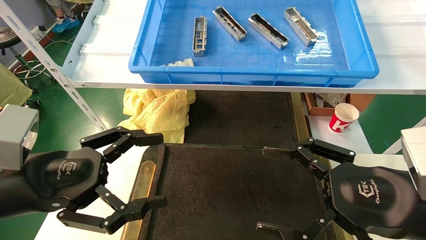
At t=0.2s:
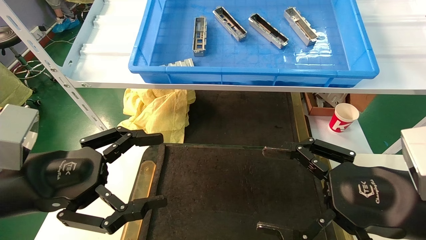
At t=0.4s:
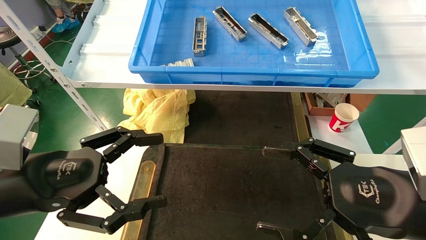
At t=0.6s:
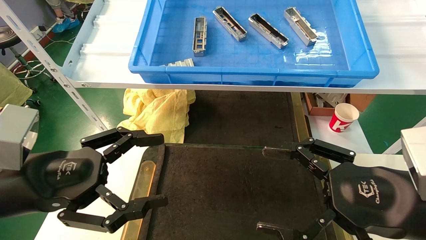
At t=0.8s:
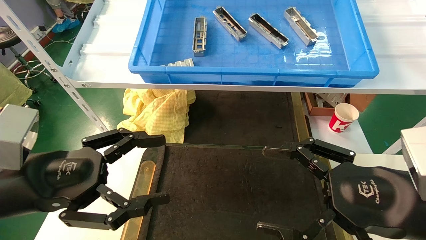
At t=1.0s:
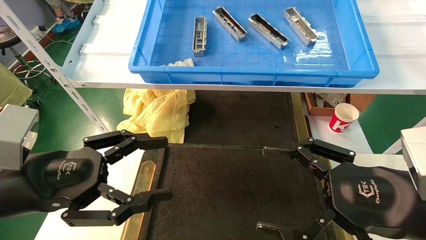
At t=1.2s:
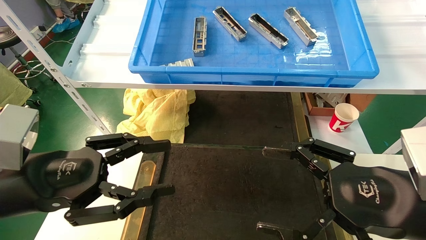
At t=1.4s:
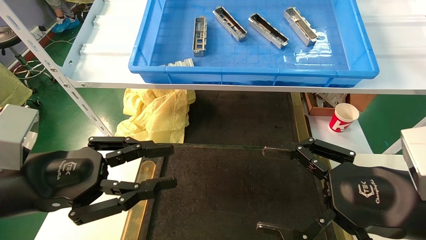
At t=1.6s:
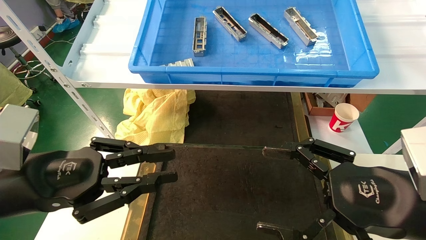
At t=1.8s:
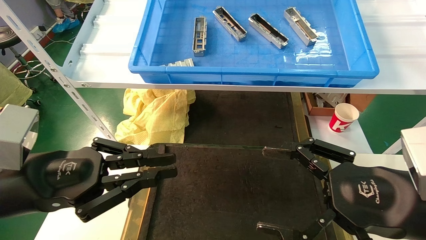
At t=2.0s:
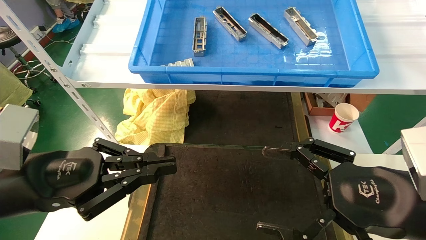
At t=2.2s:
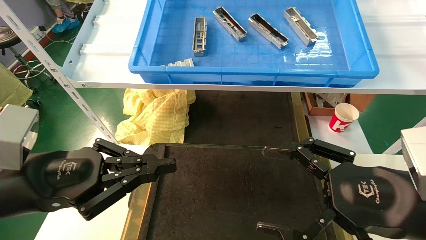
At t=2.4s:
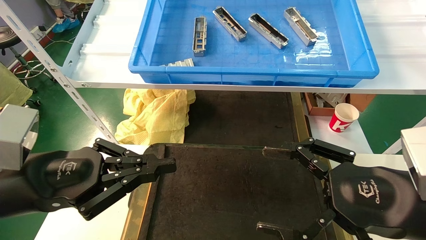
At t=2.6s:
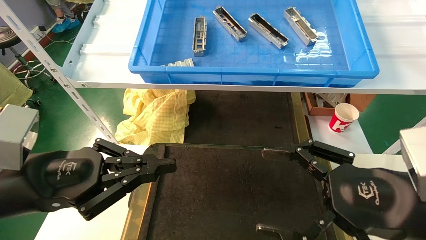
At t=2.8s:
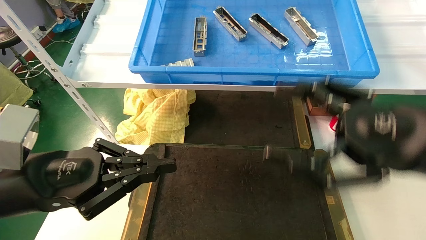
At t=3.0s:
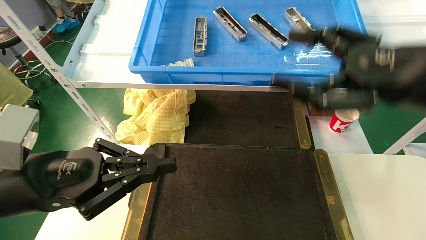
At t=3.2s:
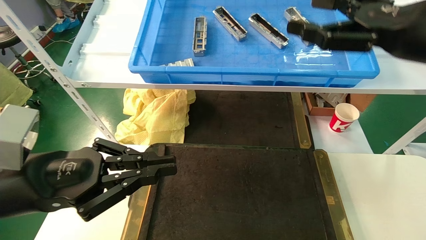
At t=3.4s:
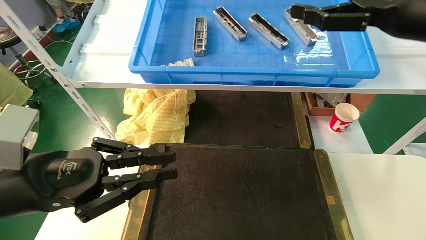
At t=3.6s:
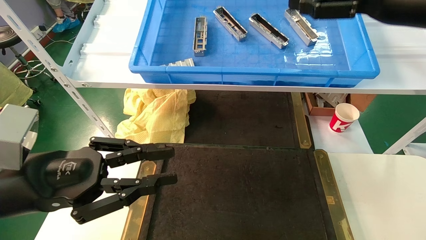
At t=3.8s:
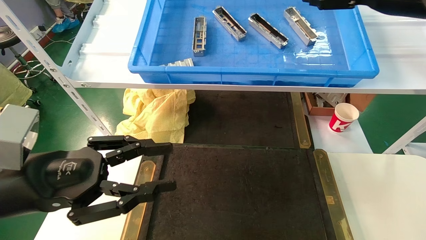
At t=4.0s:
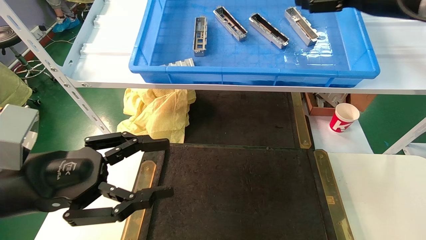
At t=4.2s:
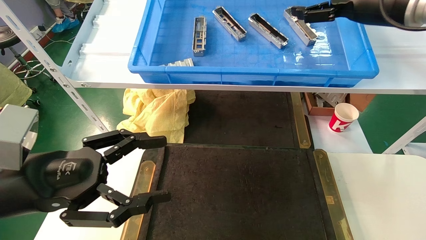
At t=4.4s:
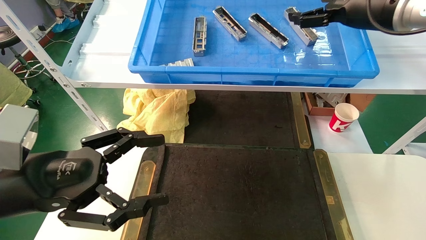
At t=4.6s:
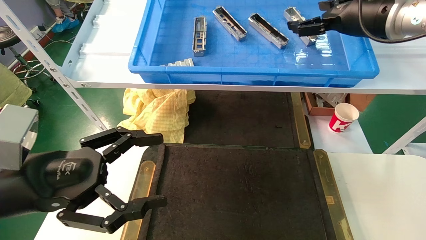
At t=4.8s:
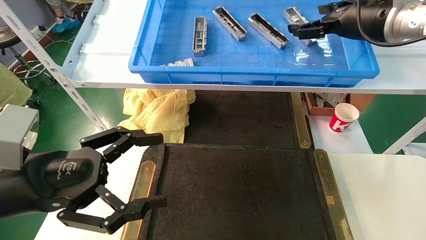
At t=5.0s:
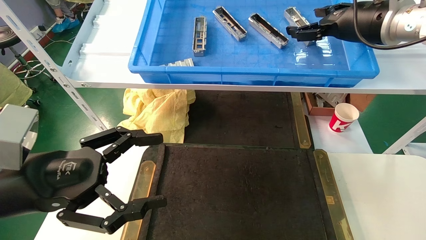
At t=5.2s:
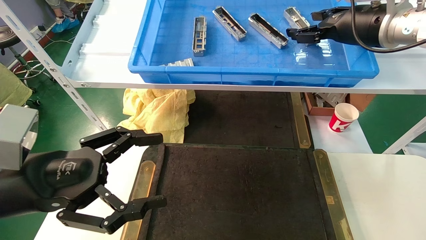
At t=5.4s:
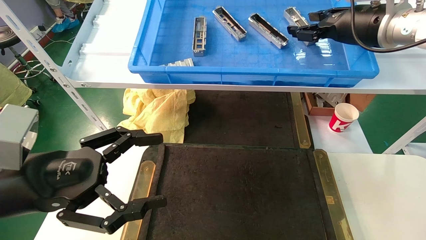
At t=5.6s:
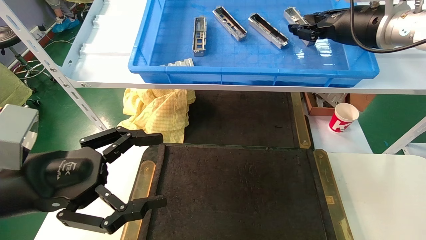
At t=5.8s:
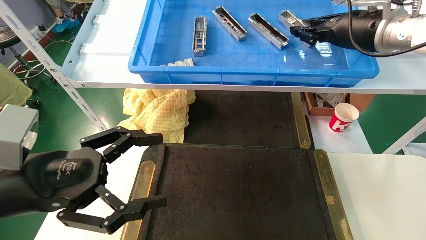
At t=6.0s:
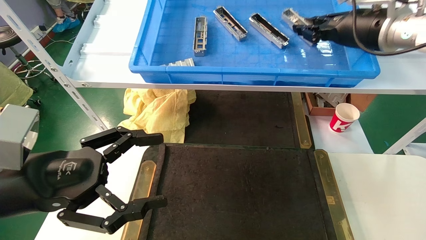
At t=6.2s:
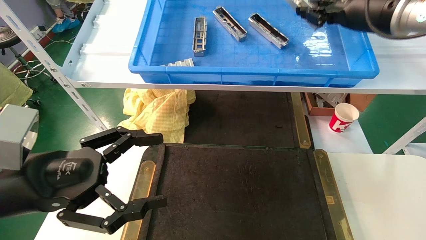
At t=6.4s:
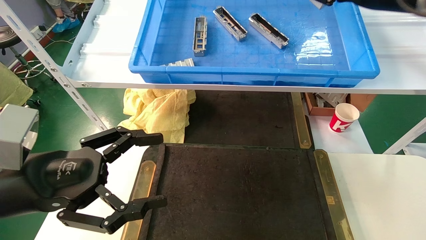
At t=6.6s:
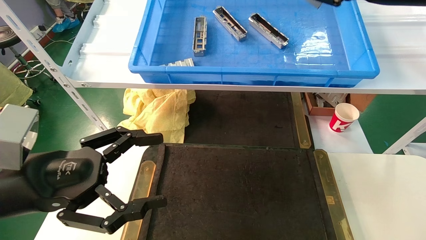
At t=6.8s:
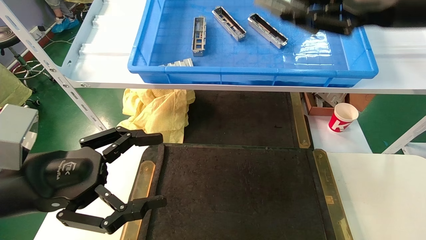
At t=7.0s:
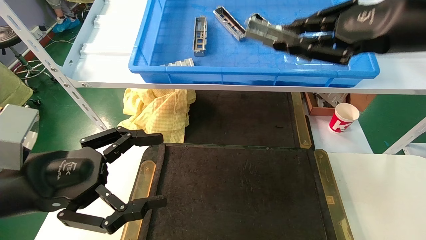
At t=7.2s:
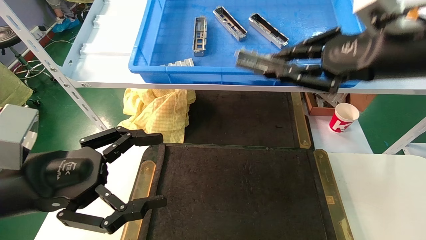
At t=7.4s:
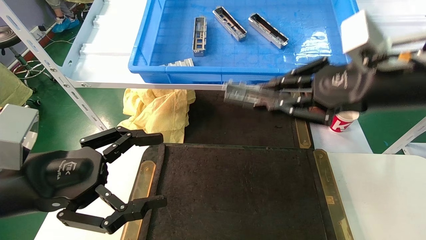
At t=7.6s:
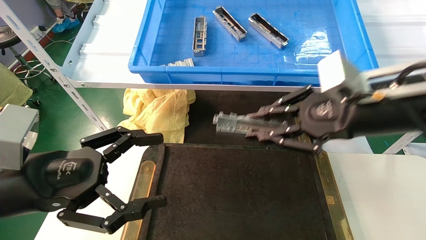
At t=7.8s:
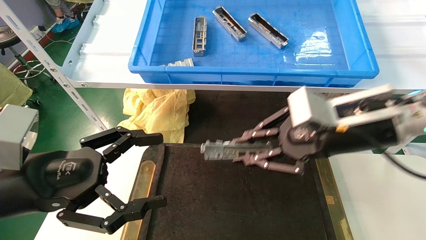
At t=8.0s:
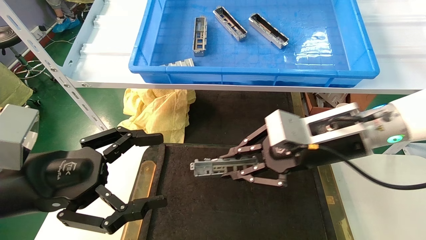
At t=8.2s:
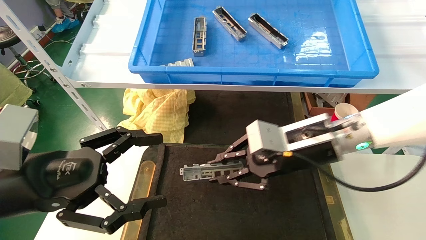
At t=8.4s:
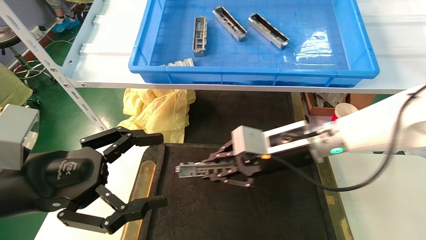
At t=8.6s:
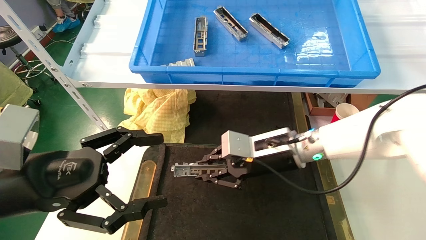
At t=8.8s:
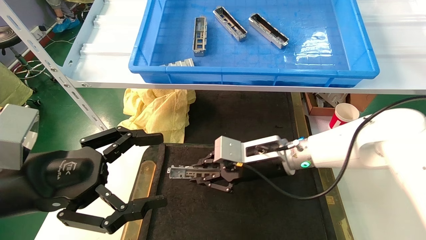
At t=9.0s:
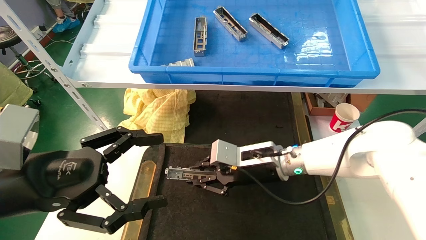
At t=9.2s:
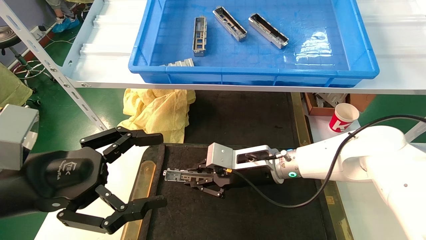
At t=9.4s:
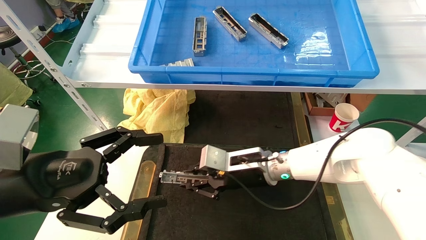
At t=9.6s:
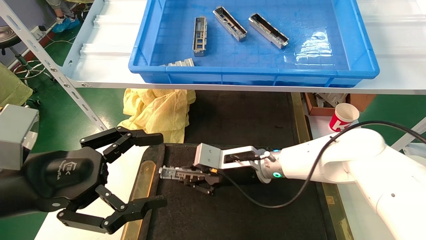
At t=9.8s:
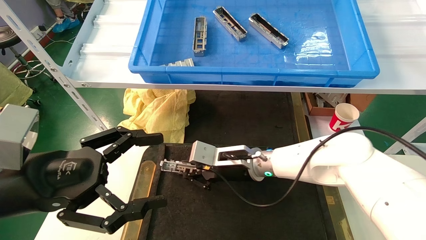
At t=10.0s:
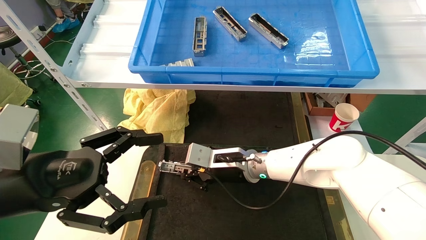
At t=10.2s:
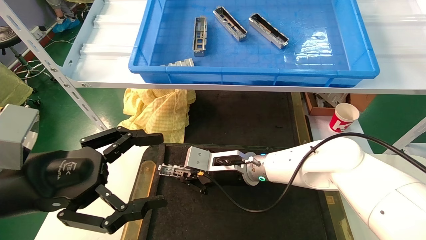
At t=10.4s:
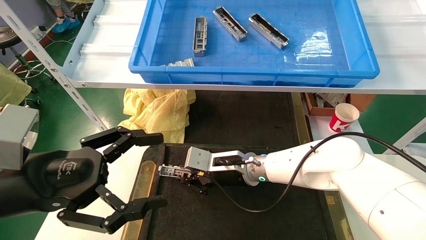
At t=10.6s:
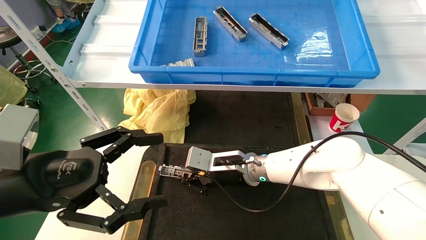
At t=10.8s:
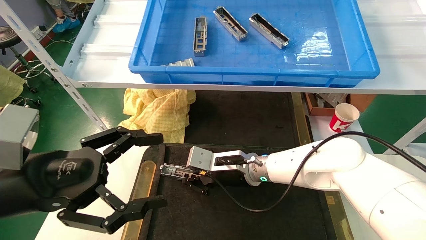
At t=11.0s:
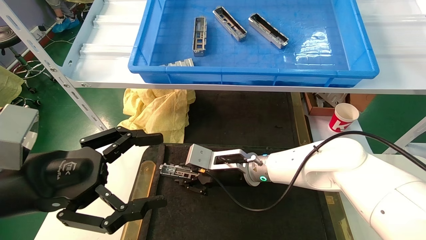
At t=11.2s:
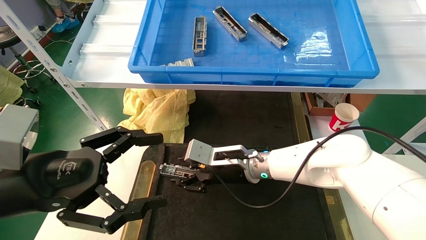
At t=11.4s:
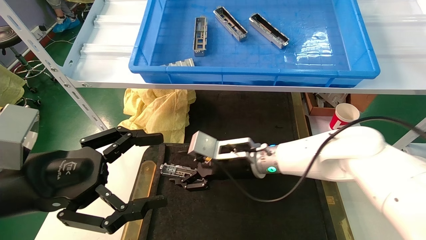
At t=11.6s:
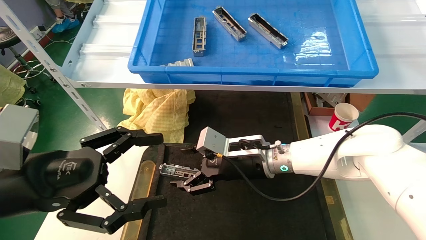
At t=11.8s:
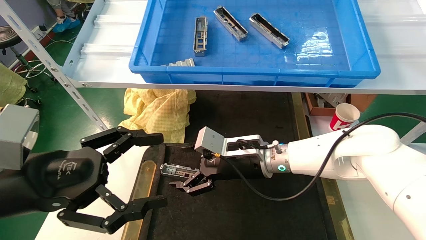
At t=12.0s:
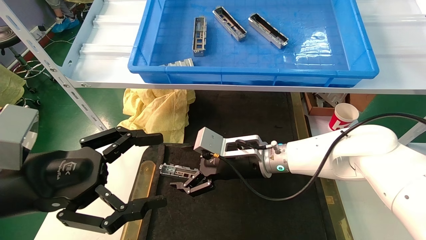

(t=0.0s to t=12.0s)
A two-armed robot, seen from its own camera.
Task of the whole recording: grasp the part and place them on the black container.
Step, t=3.0s - t=6.4s: Pick up and lift the front USB bracket from the feeding area.
Step, t=6.6s - t=11.2s: Place the front USB bracket into the box.
t=0.0s - t=1.6s: The left gripper closes up.
t=1.6s - t=3.0s: The left gripper closes. The right gripper shifts some 15 cm upward and forward.
t=3.0s - t=4.4s: The right gripper goes approximately 20 cm forward and upward, while the left gripper opens its fingers.
t=4.4s - t=6.0s: The right gripper closes.
t=6.0s - t=7.6s: The right gripper moves backward and downward, approximately 15 cm.
t=7.6s - t=9.0s: The right gripper is displaced downward, to the left and forward by approximately 25 cm.
t=9.0s - t=10.4s: The right gripper travels to the left by about 5 cm.
t=10.4s - t=12.0s: The right gripper changes place by roughly 5 cm, and opens up.

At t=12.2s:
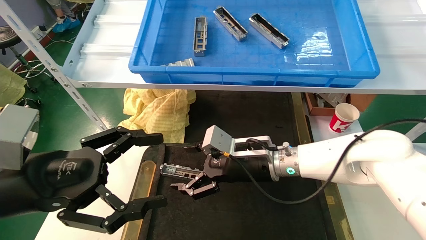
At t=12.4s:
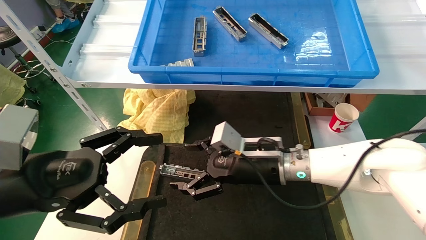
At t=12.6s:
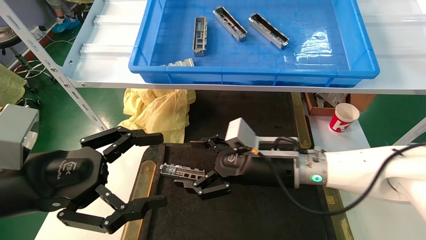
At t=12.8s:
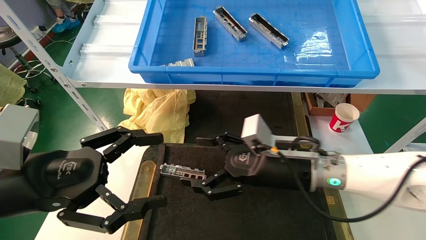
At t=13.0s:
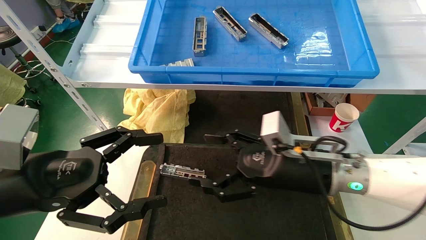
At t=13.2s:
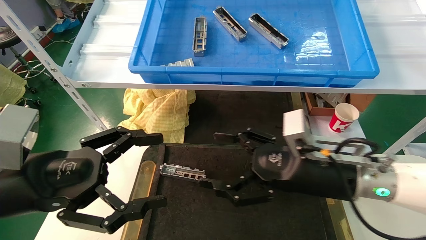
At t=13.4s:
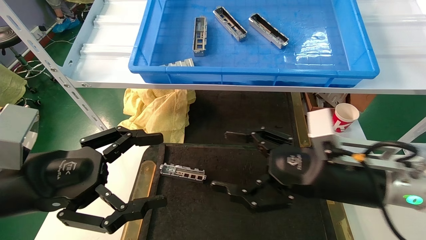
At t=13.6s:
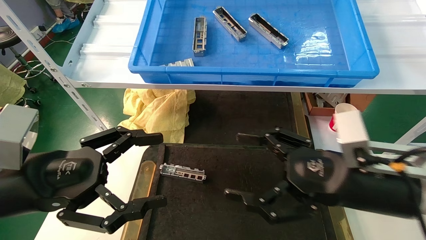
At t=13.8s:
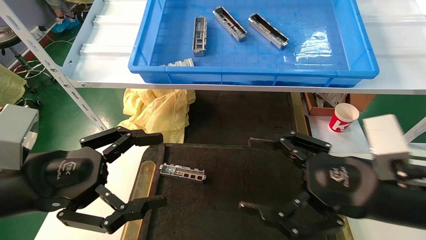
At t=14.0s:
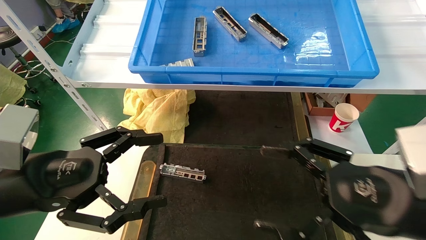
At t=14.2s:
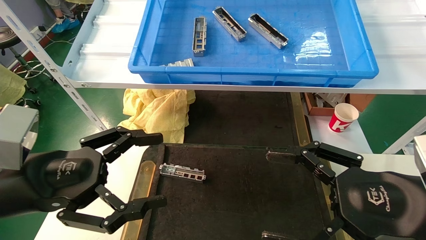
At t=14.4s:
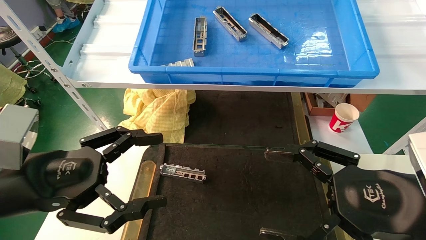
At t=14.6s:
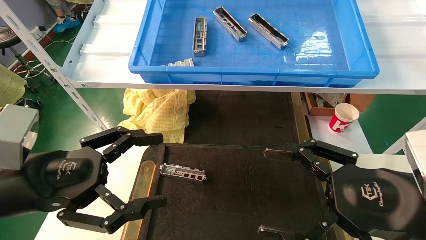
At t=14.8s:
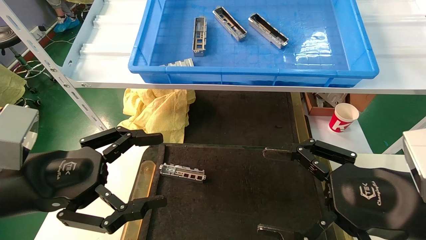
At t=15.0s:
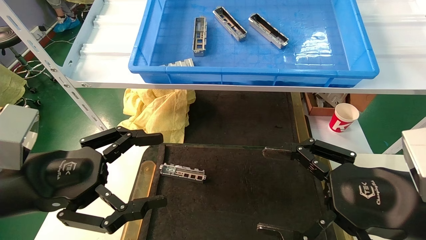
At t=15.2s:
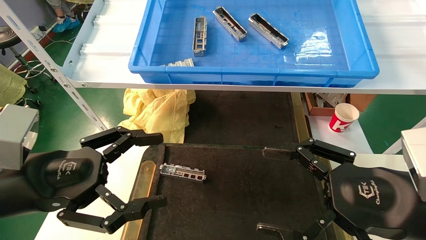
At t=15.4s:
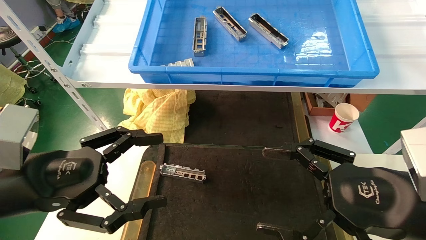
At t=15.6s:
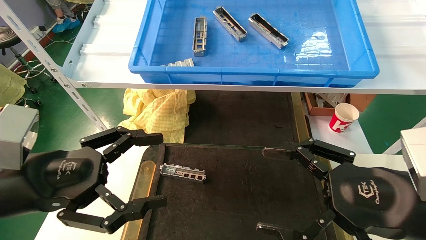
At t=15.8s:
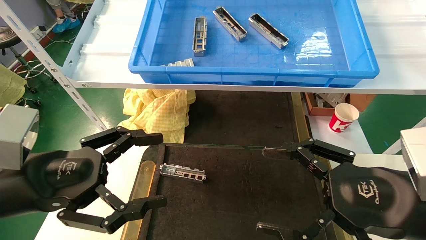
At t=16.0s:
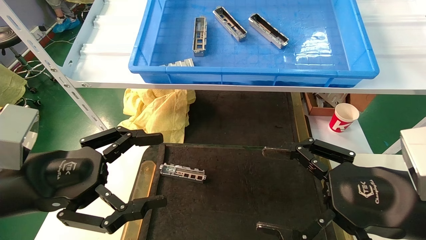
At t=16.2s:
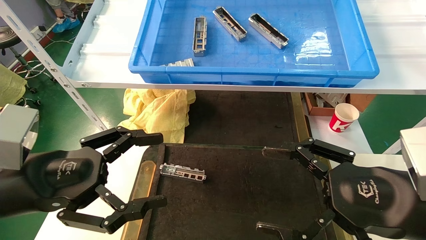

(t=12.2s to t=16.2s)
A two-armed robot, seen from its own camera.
Task of the whole recording: grasp the part and place them on the black container.
t=12.2s - t=13.6s: The right gripper goes approximately 20 cm to the right and backward.
t=13.6s - t=14.8s: The right gripper heads backward, covering approximately 5 cm.
t=14.8s - t=16.2s: Neither gripper changes place.
